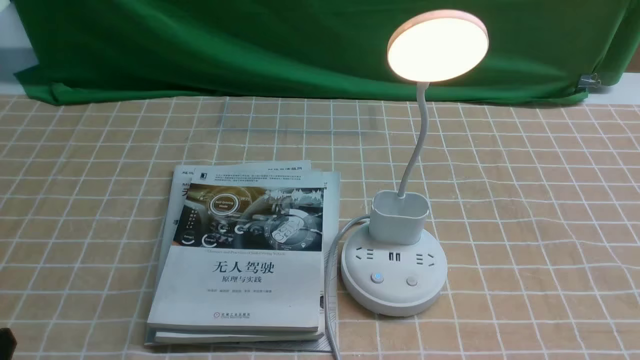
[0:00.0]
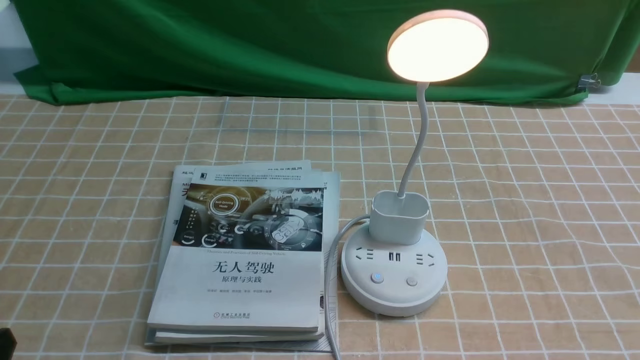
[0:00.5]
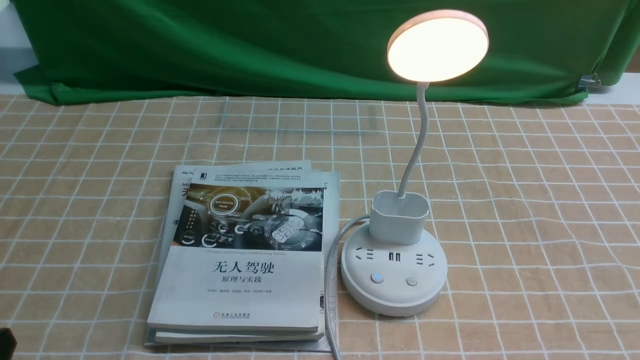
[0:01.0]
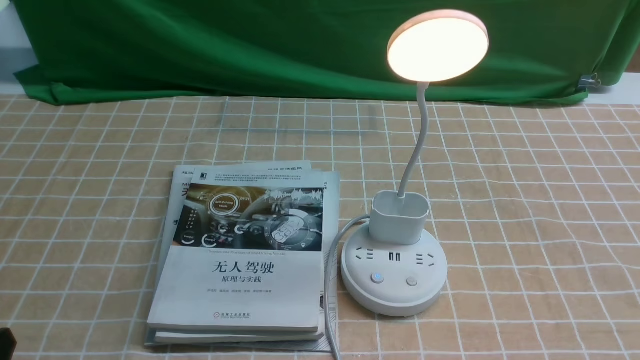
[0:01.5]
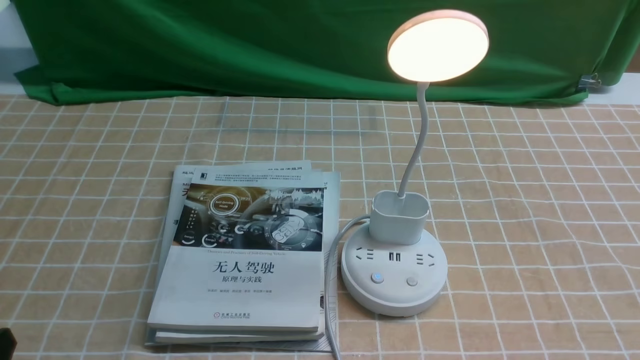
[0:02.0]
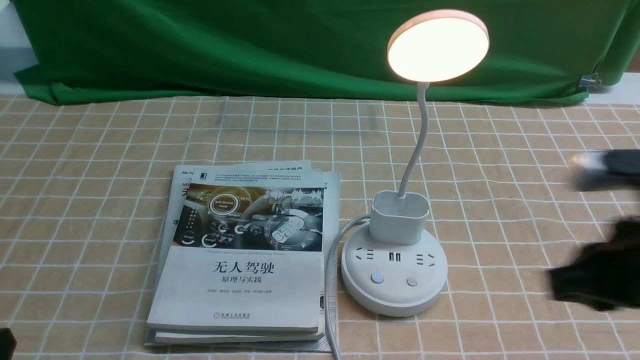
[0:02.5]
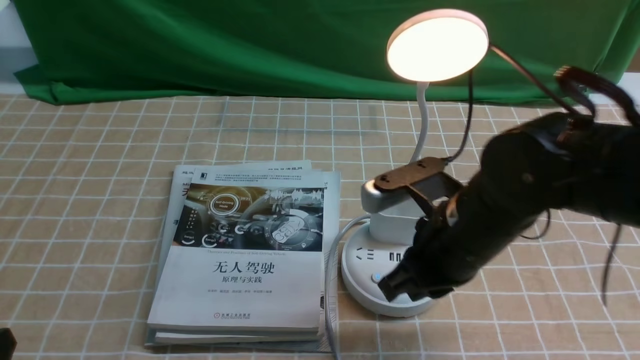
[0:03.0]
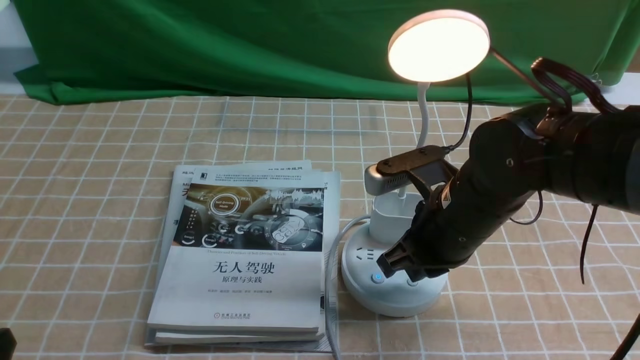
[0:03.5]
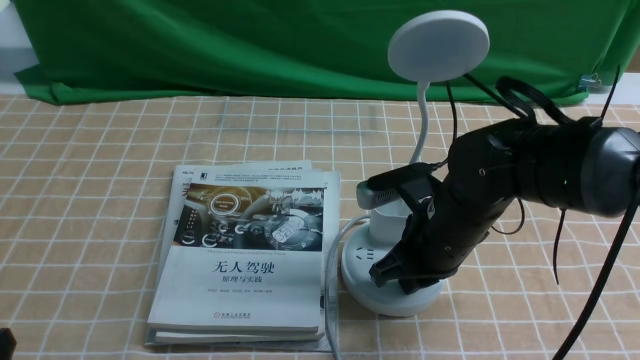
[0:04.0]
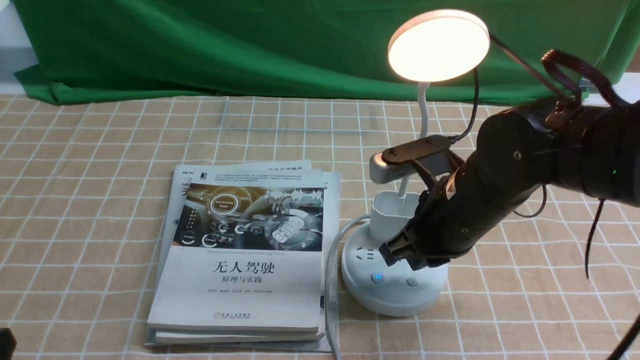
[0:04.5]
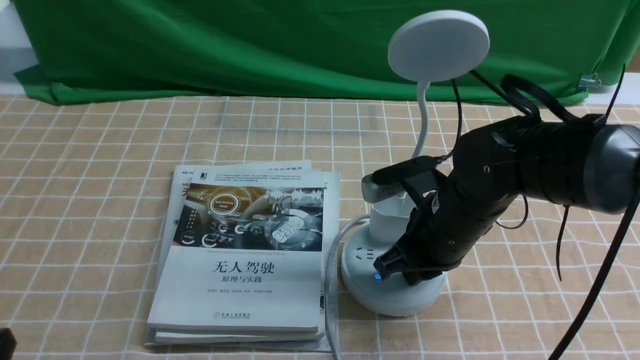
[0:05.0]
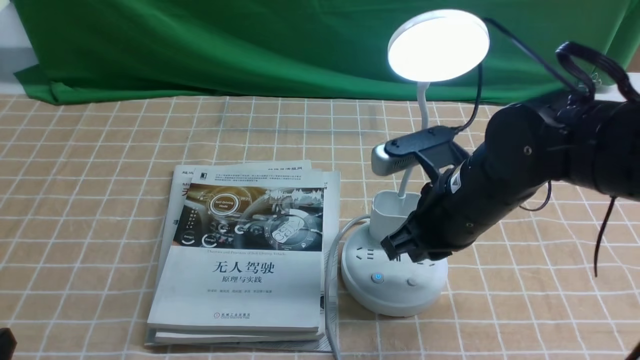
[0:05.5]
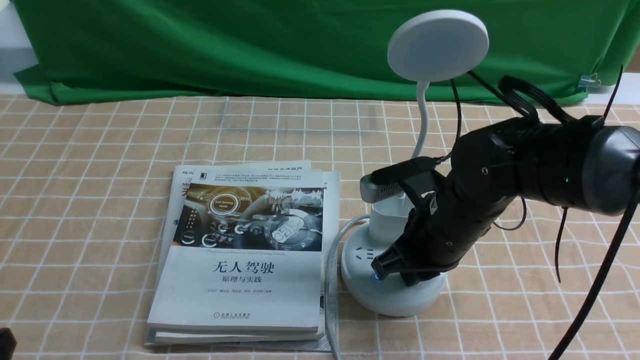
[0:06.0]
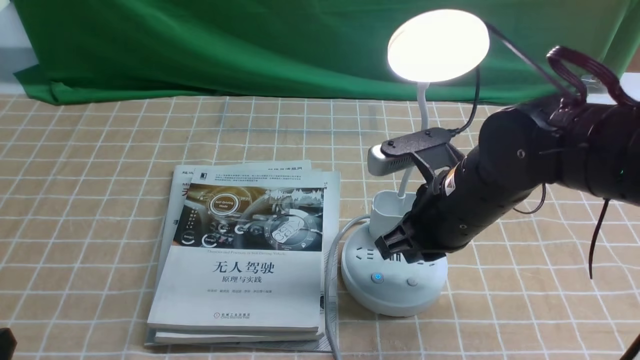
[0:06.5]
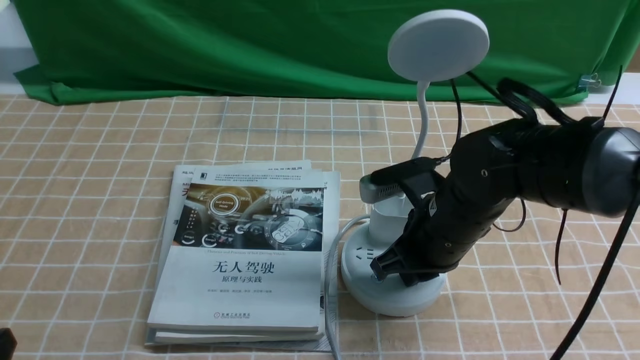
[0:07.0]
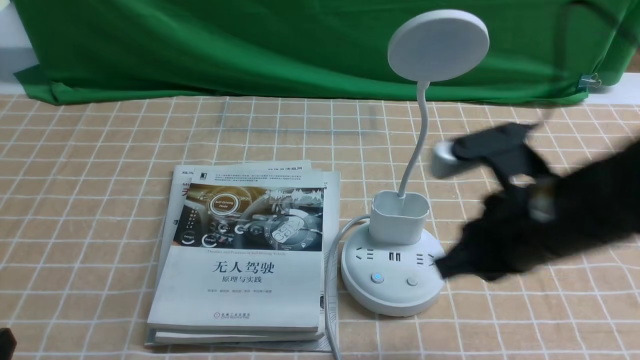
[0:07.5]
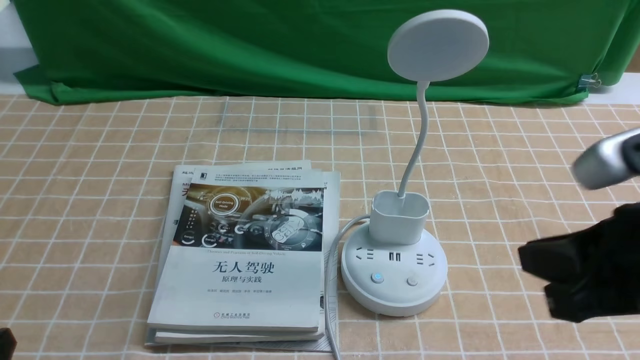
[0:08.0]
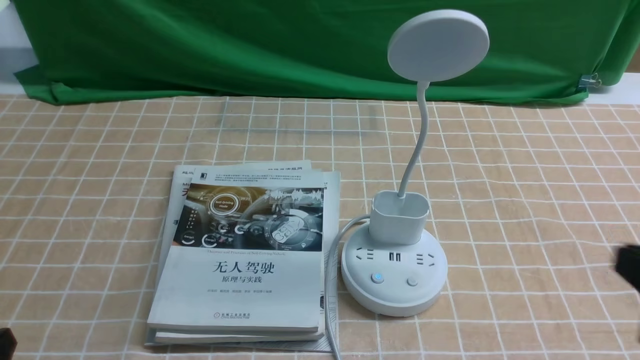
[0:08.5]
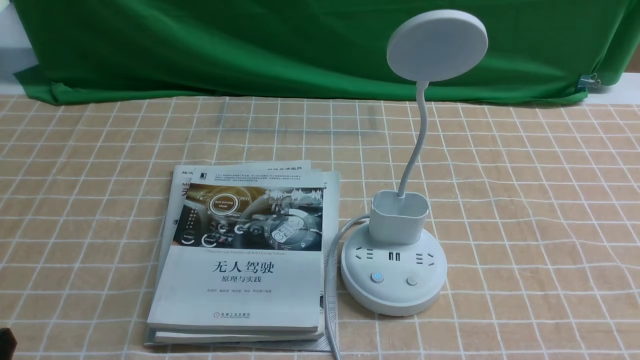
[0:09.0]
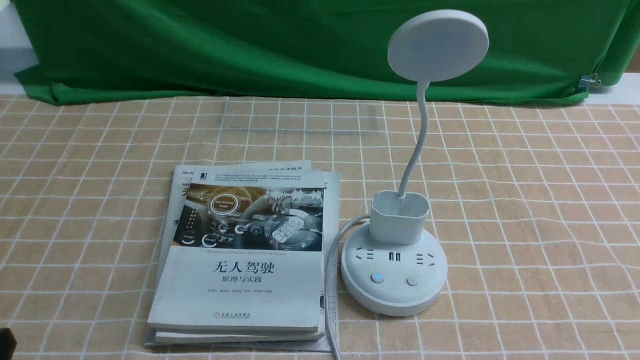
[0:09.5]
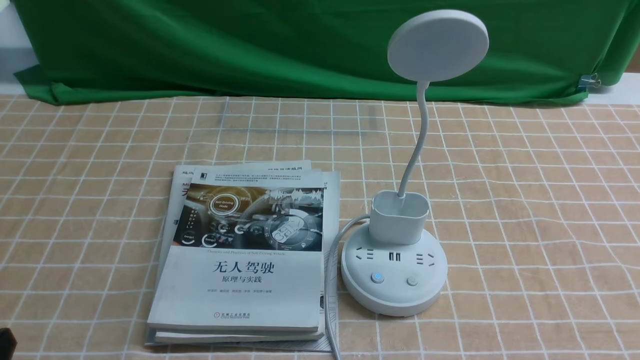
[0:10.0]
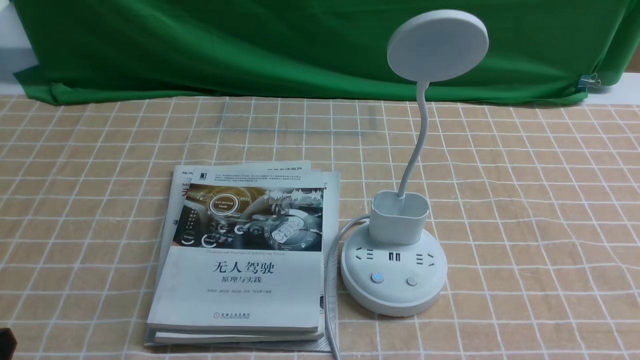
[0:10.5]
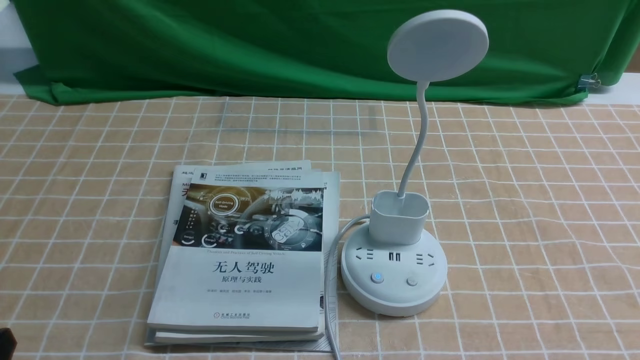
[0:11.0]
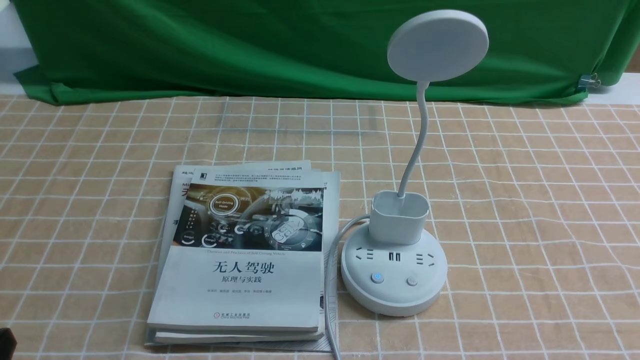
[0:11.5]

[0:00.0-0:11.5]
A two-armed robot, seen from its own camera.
Task of the whole recording: turn off the desk lamp on the light coffee tablecloth by hand.
Step, 0:00.0 to 0:07.0: use the right arm to press the button switch on the lamp holder.
0:02.0 to 0:04.0: The right gripper travels forward, to the left and downward by about 30 cm.
0:04.0 to 0:06.0: The grippers stay close to where they were, moving slightly.
0:06.0 to 0:07.5: The right gripper moves upward, backward and to the right, about 10 cm.
0:07.5 to 0:09.5: The right gripper travels backward, to the right and downward by roughly 25 cm.
